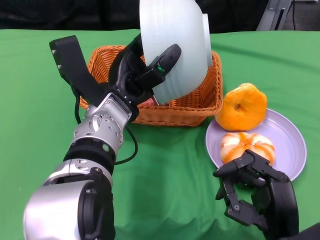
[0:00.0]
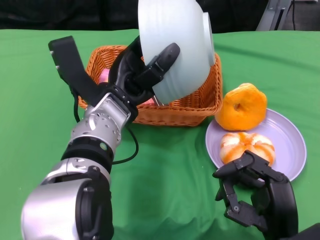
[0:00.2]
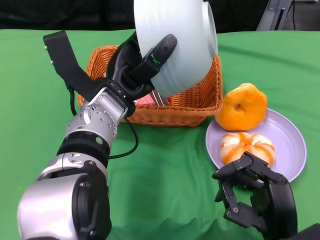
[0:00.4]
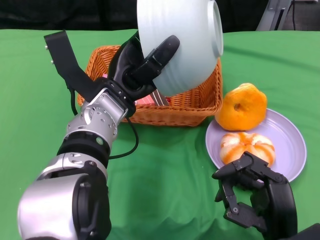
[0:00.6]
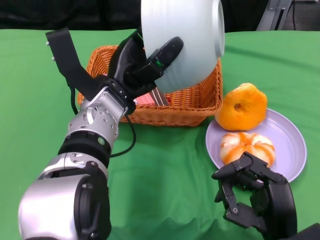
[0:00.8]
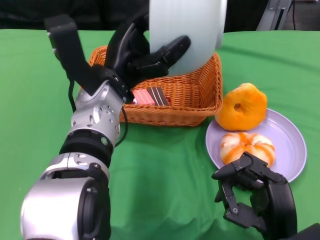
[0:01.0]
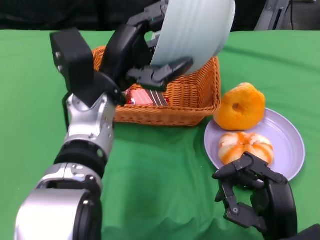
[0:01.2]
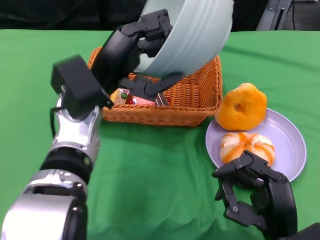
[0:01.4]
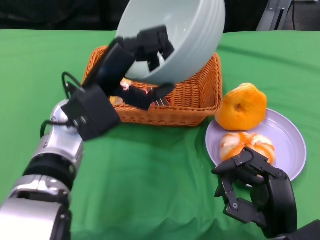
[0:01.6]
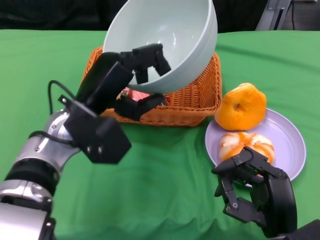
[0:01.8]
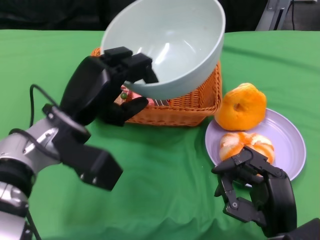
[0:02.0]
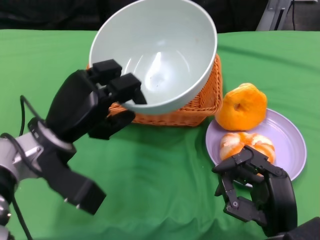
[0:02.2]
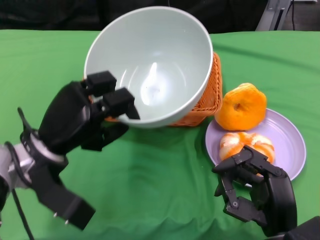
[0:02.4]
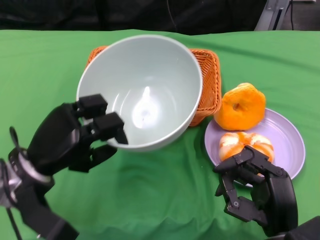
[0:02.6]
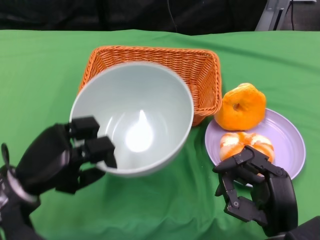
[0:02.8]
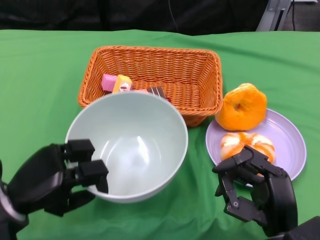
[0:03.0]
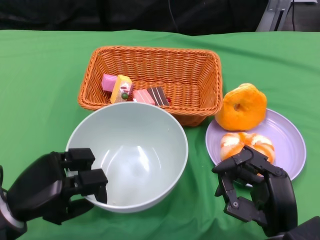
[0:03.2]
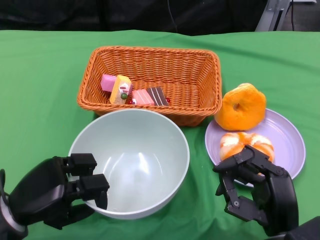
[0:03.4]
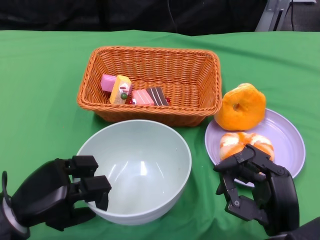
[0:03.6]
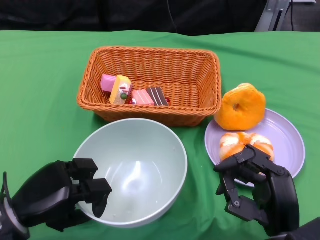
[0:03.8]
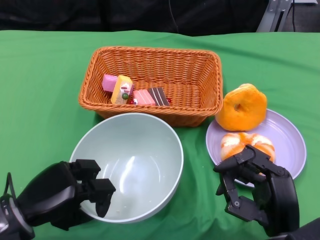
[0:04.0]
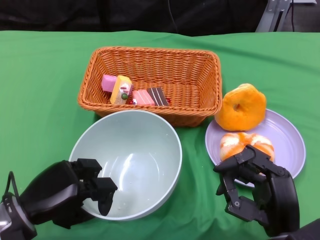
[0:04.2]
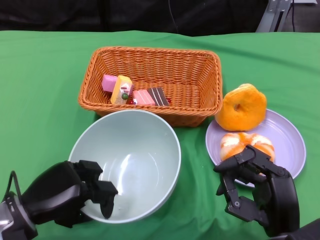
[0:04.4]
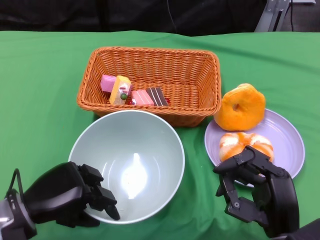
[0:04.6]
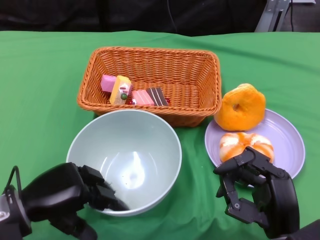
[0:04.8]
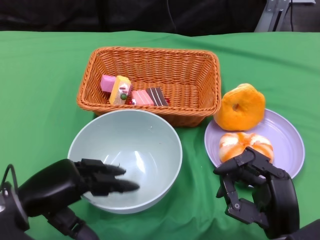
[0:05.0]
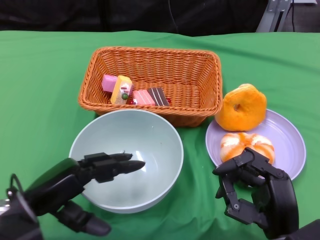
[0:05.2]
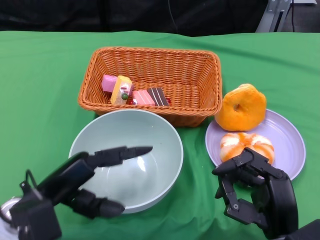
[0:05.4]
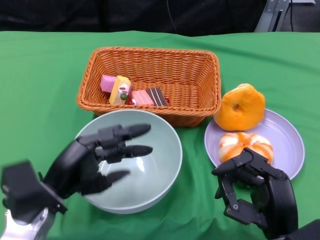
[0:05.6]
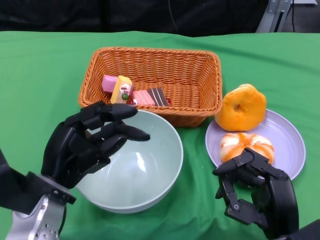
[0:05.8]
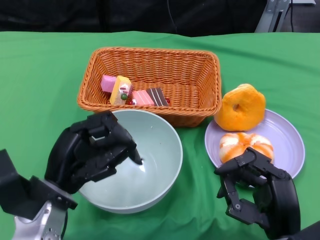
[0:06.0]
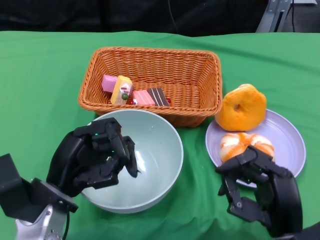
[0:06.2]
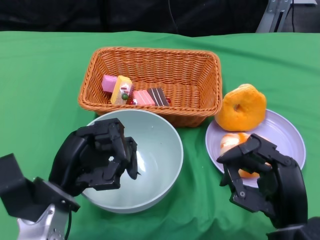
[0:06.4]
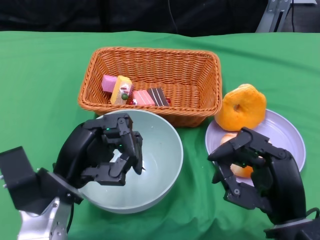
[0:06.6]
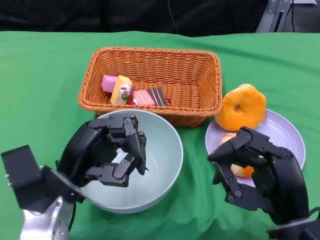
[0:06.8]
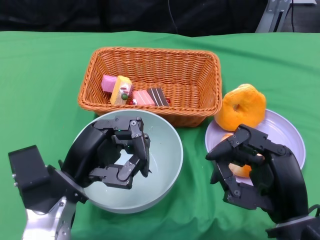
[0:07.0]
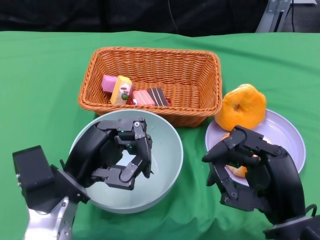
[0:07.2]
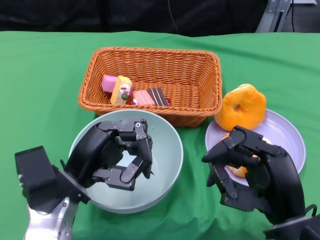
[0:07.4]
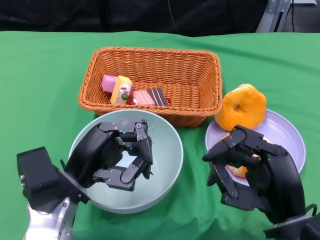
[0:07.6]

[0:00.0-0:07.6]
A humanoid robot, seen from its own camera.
Step, 0:01.4 to 0:05.4: Place the bowl on the table with the left gripper.
0:01.6 to 0:03.0: The left hand shifts roughly 15 cm to the left, downward and backward.
0:04.6 to 0:06.0: The left hand moves about 5 cm.
0:06.0 to 0:07.6: The right hand heads upward, covering roughly 5 cm.

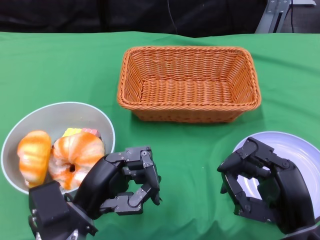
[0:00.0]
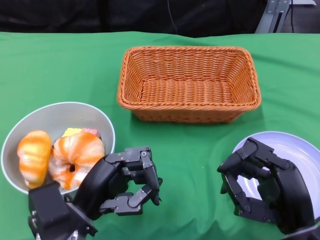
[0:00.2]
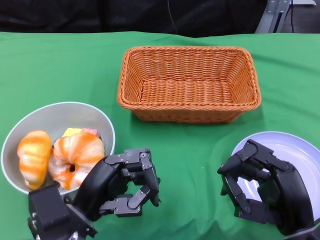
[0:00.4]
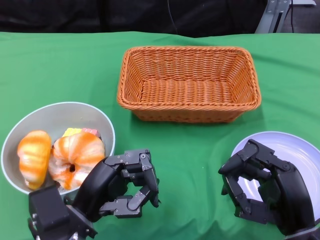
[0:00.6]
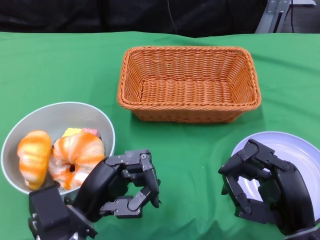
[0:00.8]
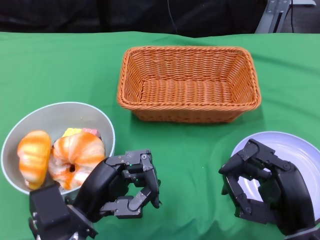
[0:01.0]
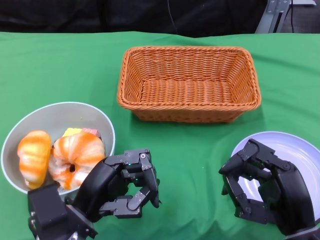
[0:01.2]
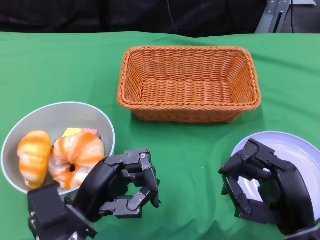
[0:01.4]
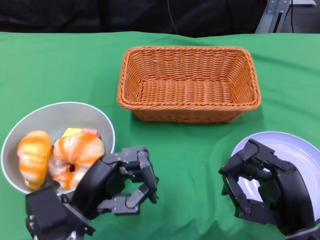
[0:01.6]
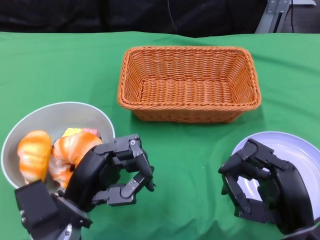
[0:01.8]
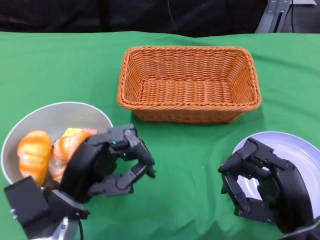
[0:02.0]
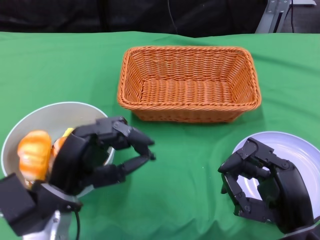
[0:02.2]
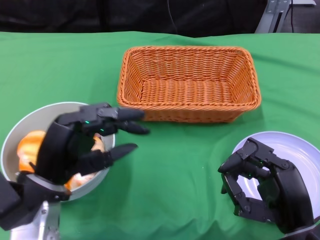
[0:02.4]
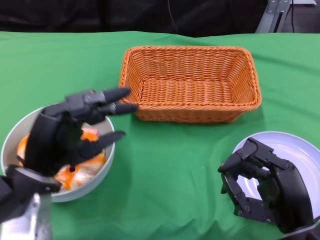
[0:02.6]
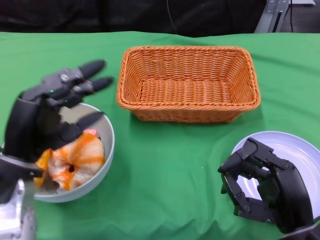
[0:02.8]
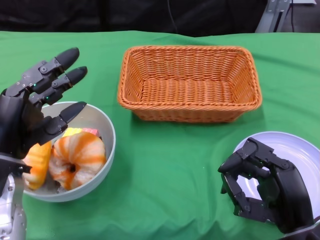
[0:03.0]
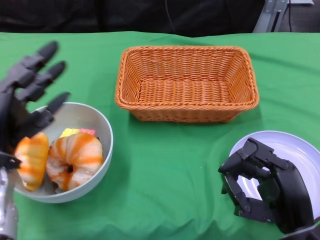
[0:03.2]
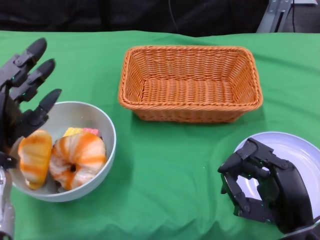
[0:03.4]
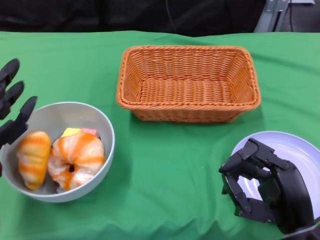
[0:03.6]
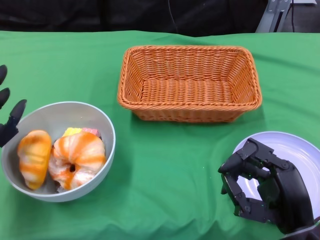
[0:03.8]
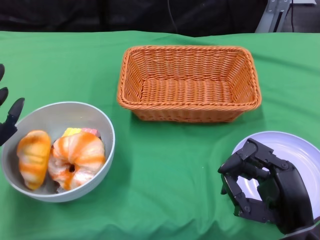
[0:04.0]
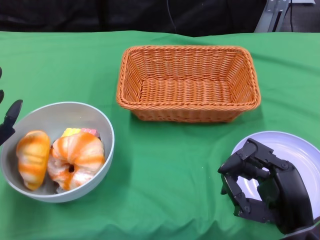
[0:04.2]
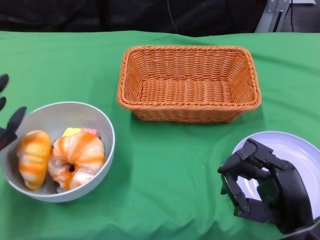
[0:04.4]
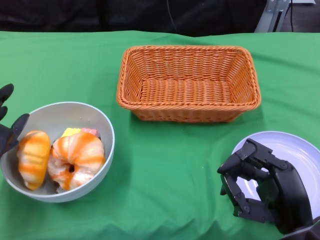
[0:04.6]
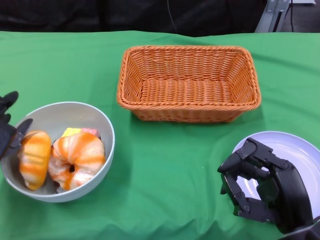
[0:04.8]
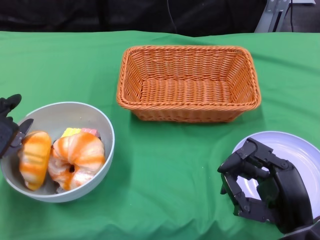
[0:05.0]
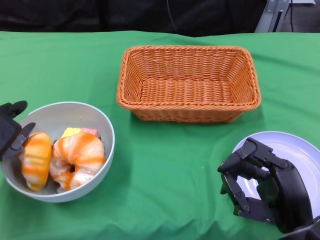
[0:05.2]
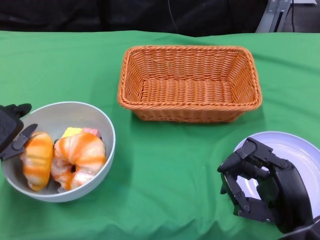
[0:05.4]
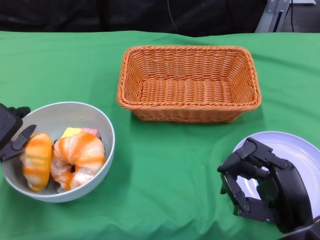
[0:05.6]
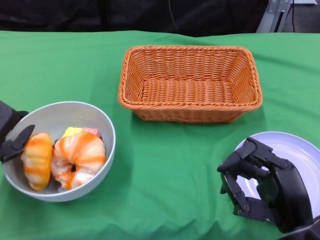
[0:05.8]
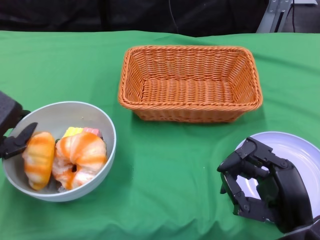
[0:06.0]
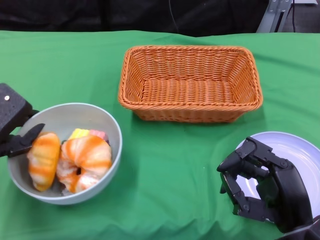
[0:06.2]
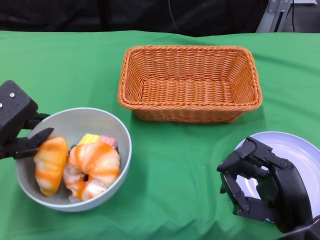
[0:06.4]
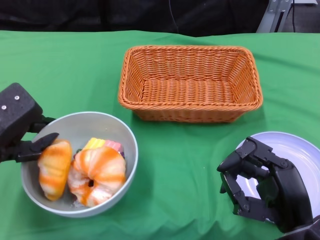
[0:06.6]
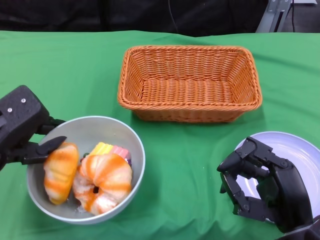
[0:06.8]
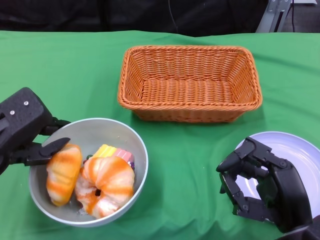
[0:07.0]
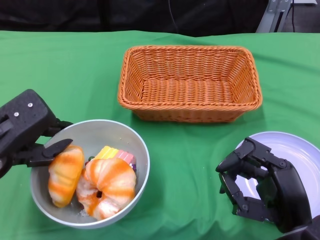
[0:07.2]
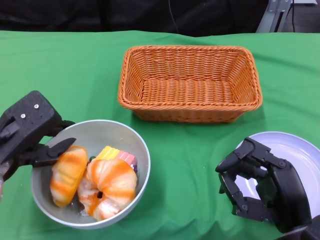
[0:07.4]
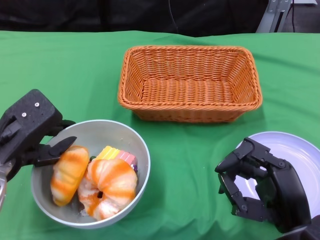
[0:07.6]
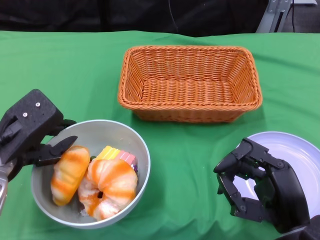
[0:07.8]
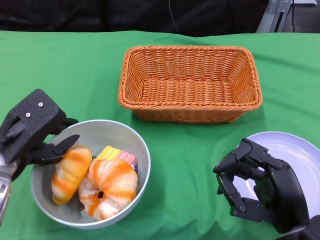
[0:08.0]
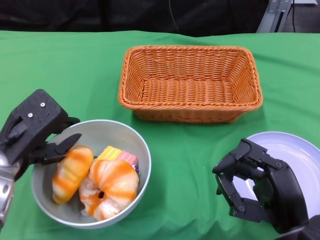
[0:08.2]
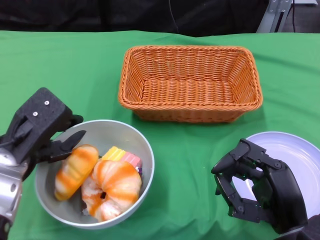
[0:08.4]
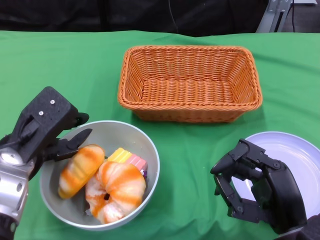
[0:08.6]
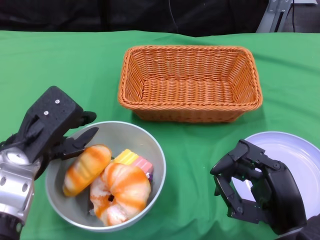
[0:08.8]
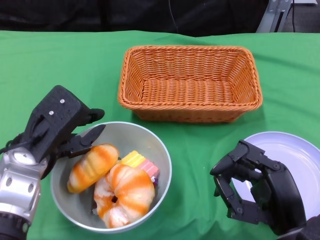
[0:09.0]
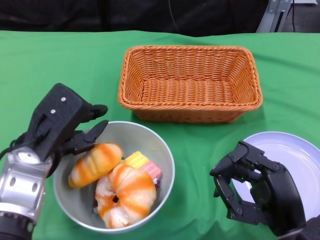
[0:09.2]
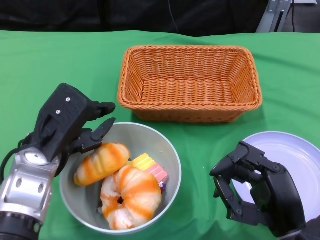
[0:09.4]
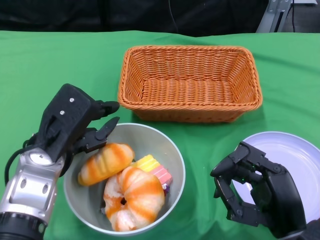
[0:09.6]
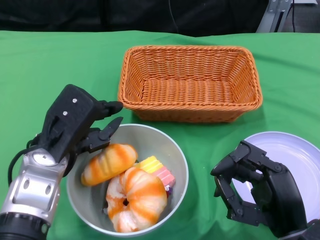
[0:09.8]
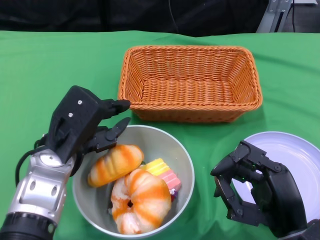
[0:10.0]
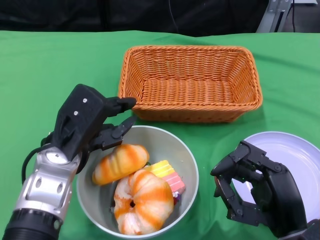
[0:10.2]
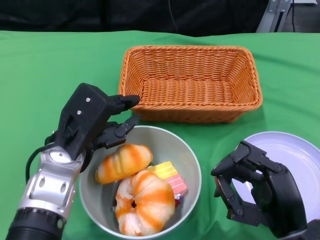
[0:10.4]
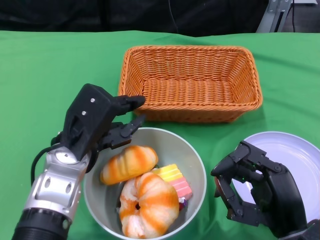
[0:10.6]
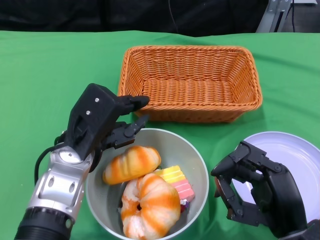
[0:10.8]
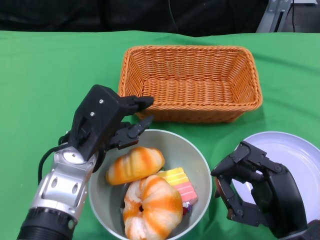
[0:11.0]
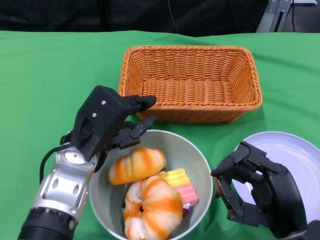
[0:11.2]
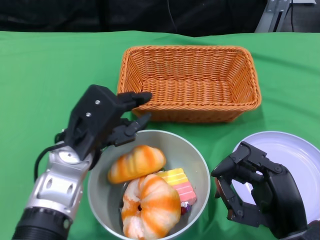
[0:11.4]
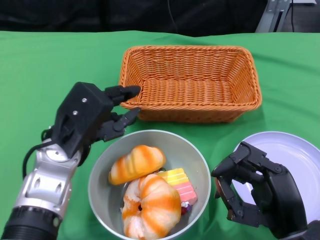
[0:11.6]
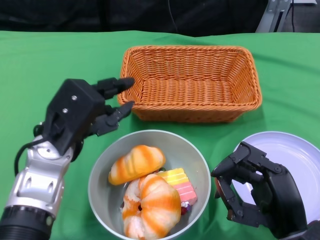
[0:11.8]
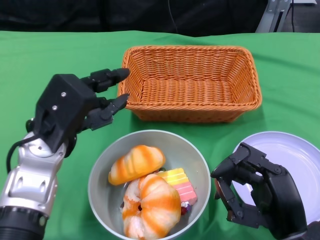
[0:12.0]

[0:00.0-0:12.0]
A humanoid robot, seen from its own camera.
Step, 0:00.0 to 0:05.8: Grasp the bowl with the left gripper.
0:01.6 to 0:03.0: The left hand moves to the left and upward, approximately 10 cm.
0:03.0 to 0:04.4: The left hand moves to the left, approximately 5 cm.

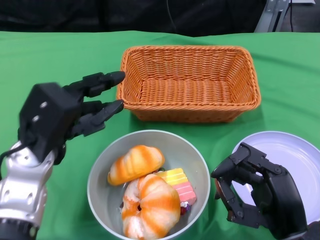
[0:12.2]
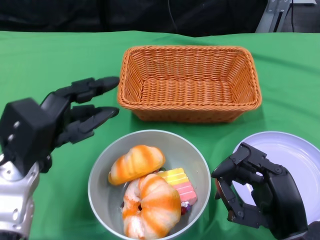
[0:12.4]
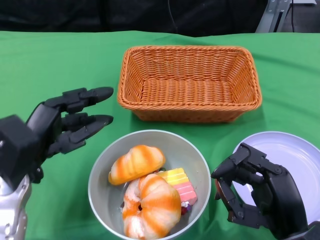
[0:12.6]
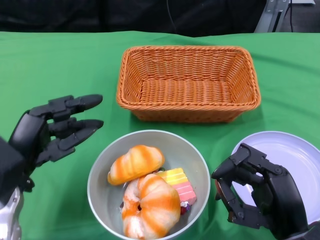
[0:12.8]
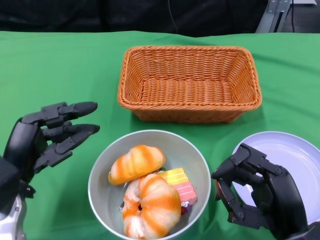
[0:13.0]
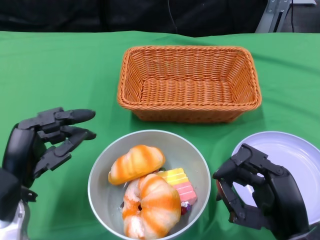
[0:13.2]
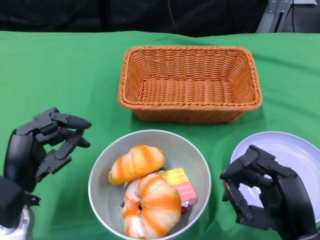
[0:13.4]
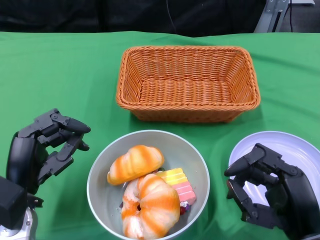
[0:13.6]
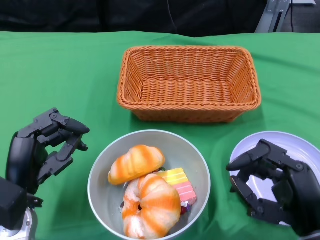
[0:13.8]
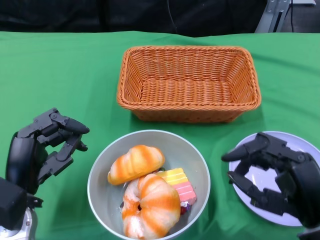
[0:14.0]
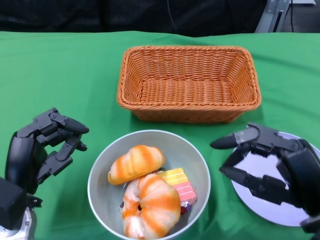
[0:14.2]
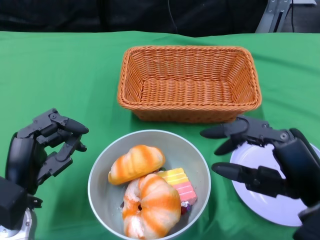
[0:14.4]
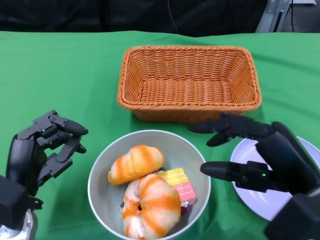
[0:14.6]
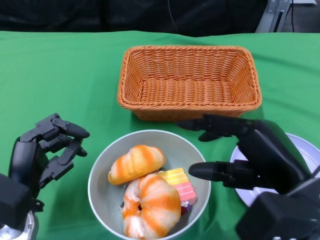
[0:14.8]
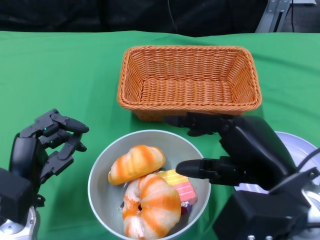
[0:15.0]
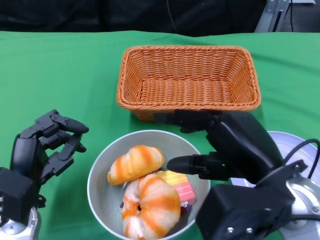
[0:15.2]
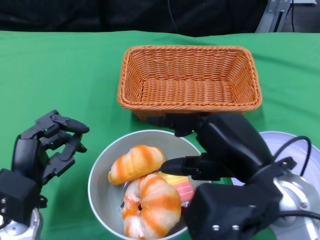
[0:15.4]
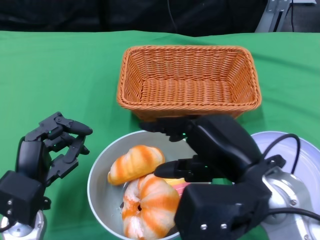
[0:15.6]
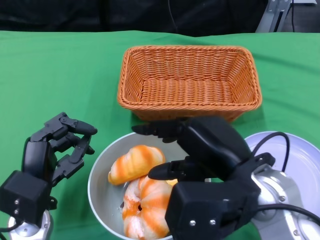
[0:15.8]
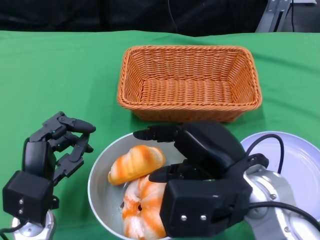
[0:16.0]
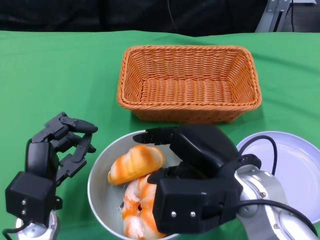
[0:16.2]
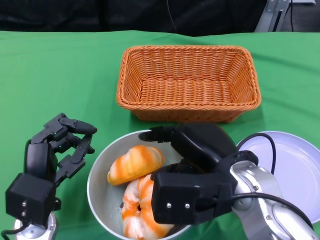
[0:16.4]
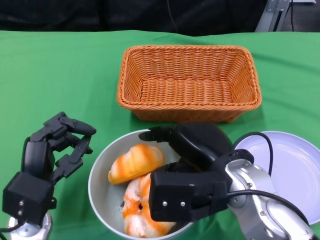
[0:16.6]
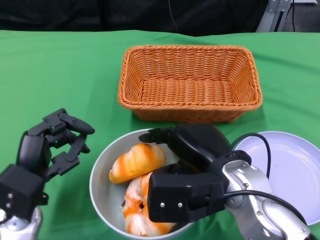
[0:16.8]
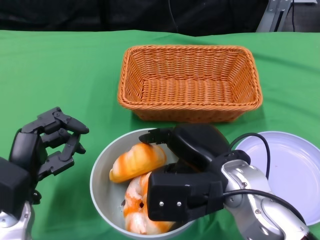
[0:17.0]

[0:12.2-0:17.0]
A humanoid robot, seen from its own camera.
0:12.2 to 0:13.8: The left hand moves downward and backward, about 10 cm.
0:13.8 to 0:15.4: The right hand heads upward and to the left, covering roughly 10 cm.
0:15.4 to 0:17.0: The right hand moves some 5 cm.
